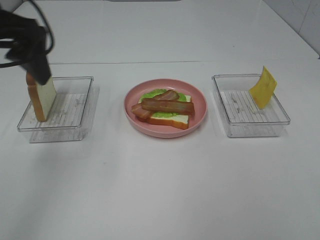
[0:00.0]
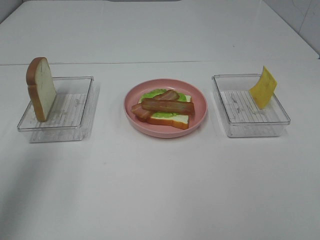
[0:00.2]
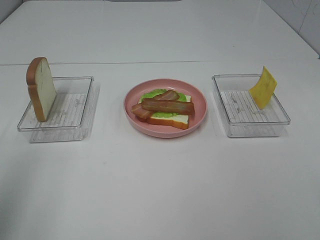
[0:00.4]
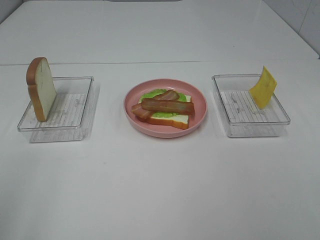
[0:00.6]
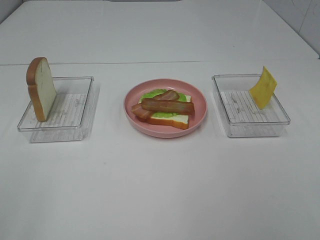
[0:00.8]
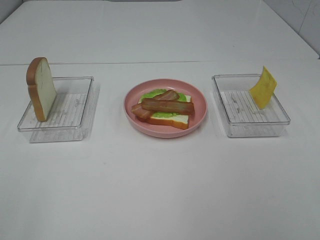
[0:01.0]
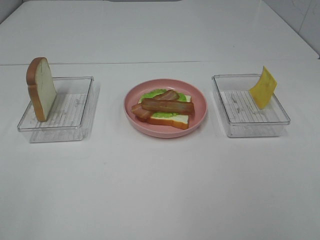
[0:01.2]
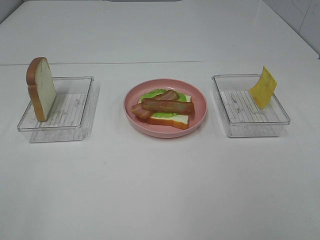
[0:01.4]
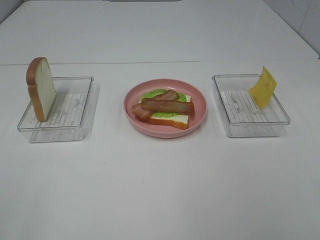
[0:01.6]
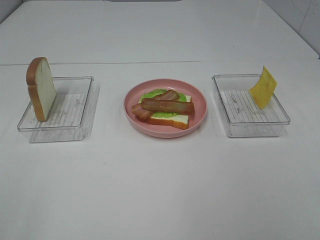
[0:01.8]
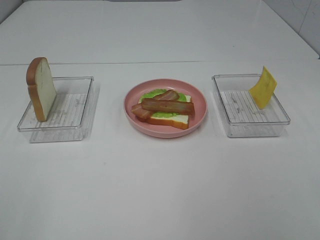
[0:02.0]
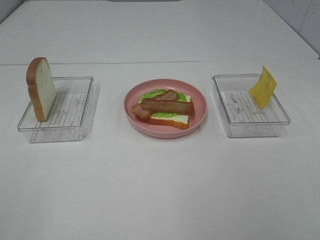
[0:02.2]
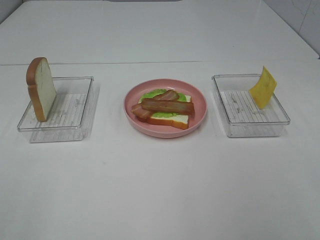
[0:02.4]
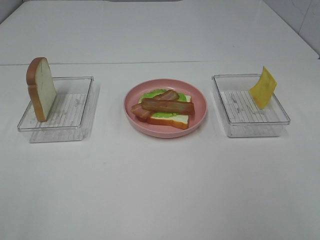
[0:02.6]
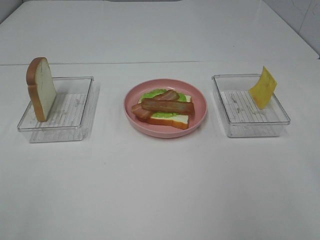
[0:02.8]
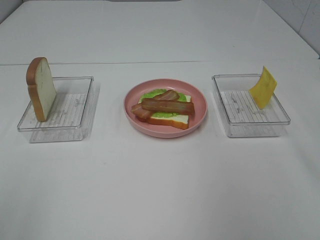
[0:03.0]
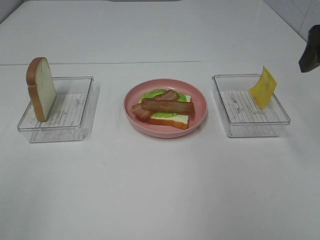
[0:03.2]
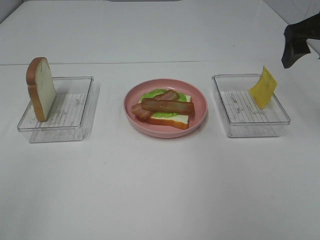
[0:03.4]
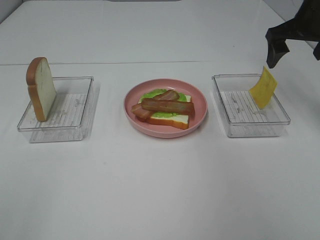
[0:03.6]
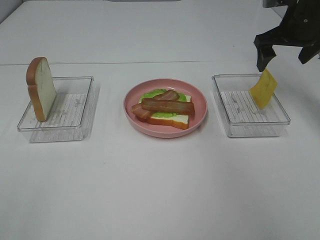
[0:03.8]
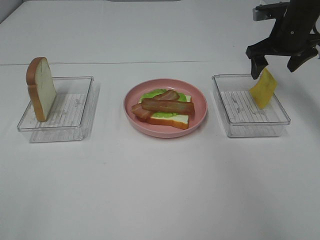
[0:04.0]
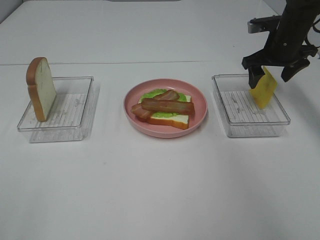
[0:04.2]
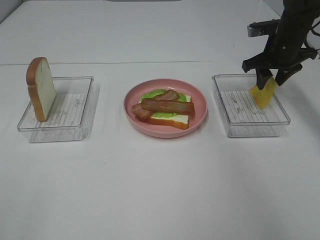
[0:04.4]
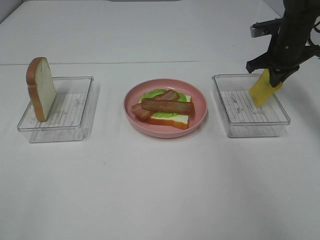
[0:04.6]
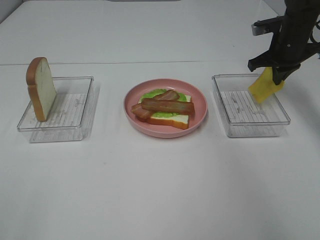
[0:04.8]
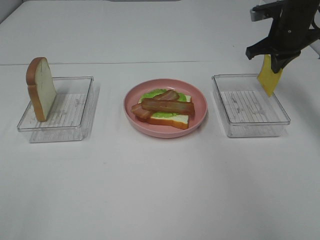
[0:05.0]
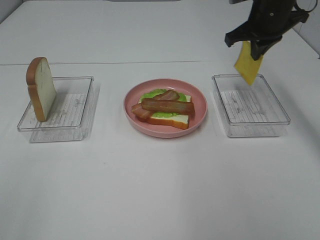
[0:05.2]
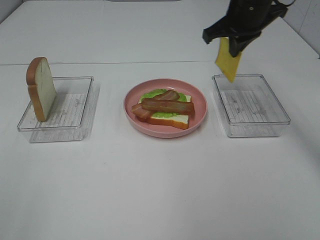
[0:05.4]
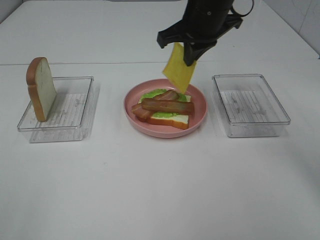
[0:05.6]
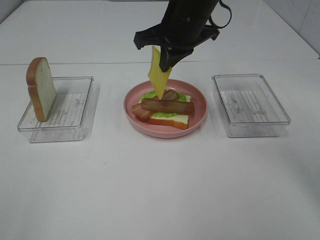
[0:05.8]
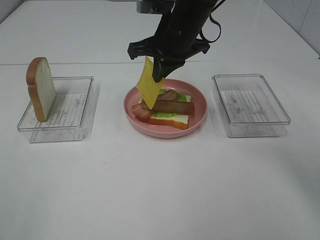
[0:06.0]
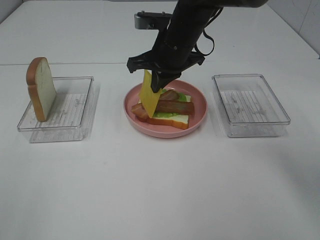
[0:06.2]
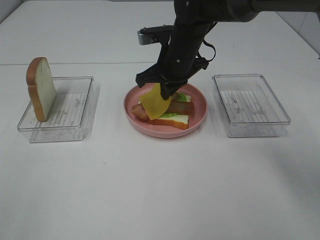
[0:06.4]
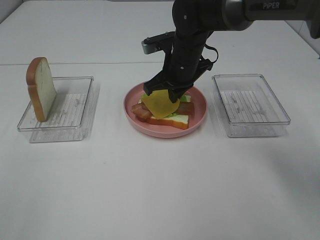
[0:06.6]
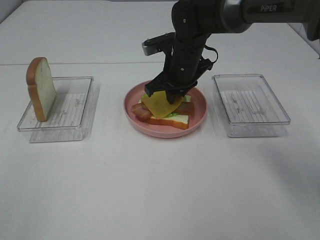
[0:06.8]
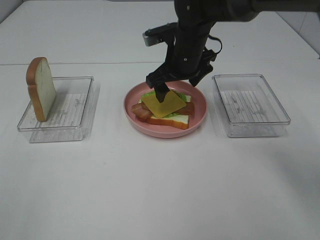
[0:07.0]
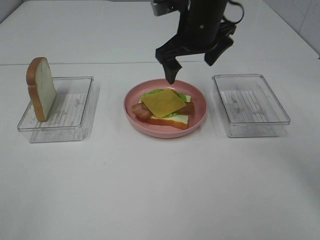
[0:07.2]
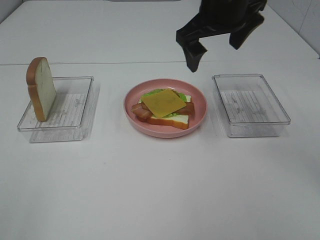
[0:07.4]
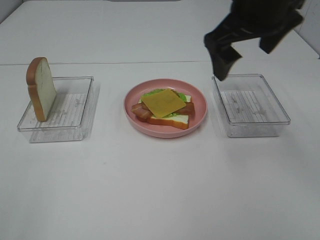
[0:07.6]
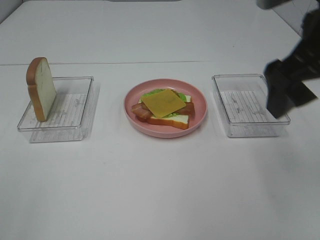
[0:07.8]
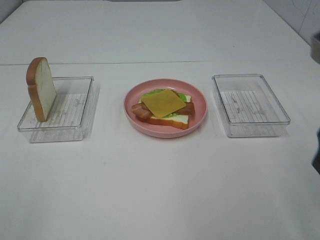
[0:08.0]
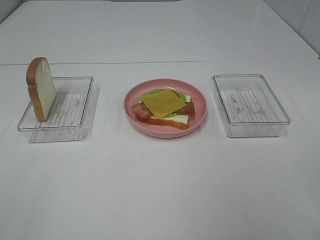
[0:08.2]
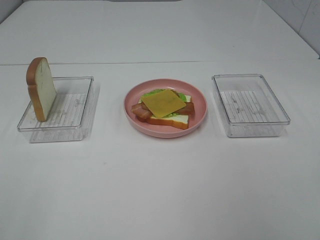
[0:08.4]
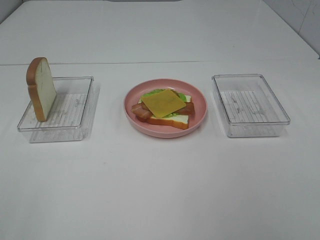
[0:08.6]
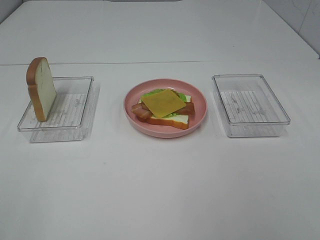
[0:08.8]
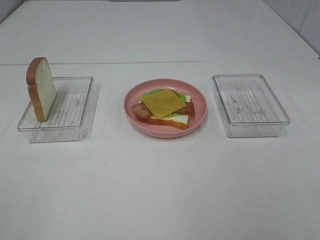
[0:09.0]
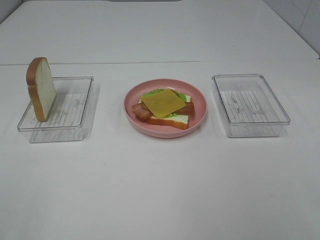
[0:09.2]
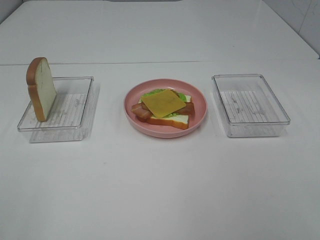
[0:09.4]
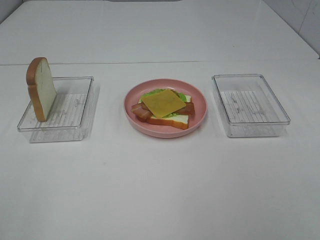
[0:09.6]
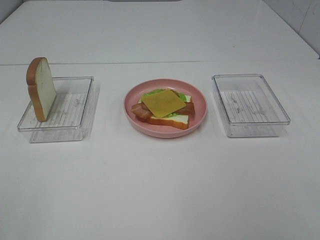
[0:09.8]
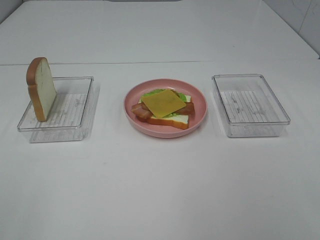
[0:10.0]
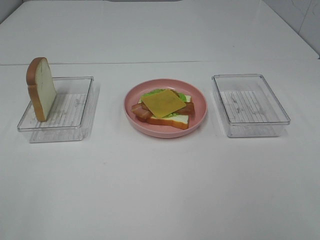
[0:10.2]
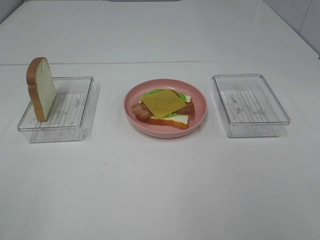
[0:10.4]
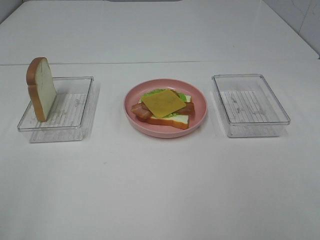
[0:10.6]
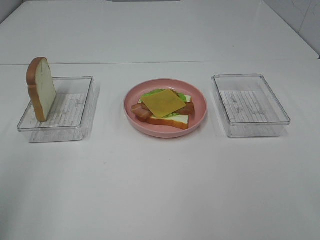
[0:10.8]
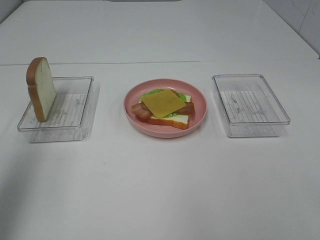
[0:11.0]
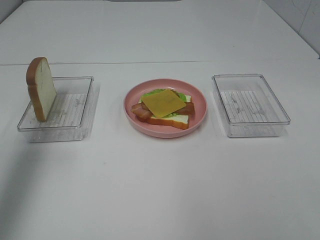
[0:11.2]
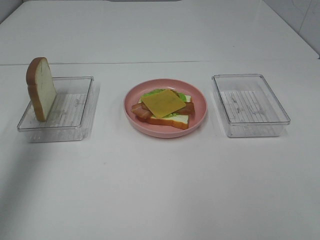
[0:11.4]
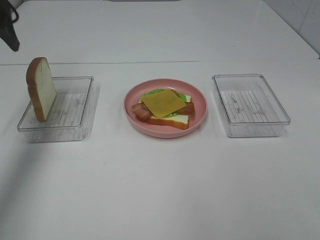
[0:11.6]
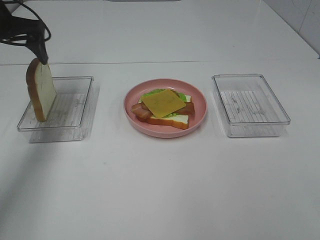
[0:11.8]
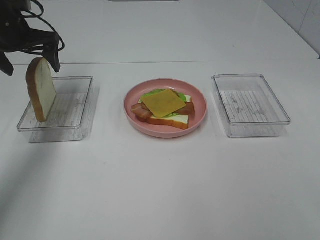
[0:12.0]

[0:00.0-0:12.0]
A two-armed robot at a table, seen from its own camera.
Task of the whole recording: Make sandwiches.
Step, 0.0 to 4.8 s: Right hand:grab the cheese slice.
Step, 5.0 to 6.8 s: Right hand:place the cheese slice on top of the bacon.
0.0 to 1.6 s: The left gripper shifts about 30 cm backward.
3.0 to 4.4 s: The right gripper is displaced forward and downward by approximately 30 cm, and closes up.
4.4 to 6.0 s: The right gripper travels to the left by roughly 25 cm, and closes its fingers.
6.0 to 7.6 s: The right gripper shifts roughly 15 cm upward, backward and to the right, and opens.
7.6 to 9.0 s: The right gripper heads backward and to the right, covering approximately 35 cm.
9.0 to 10.4 s: Both grippers stay put.
10.4 to 12.0 s: The left gripper travels forward by about 50 cm.

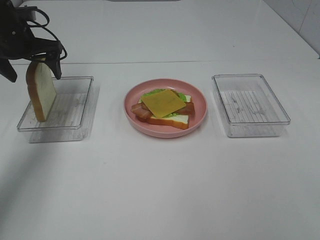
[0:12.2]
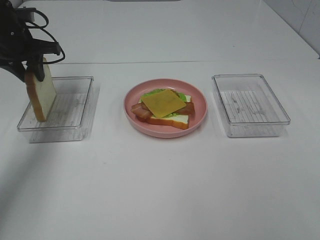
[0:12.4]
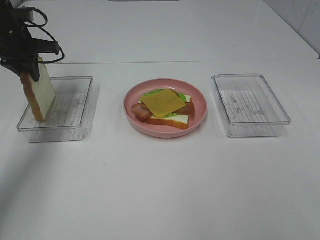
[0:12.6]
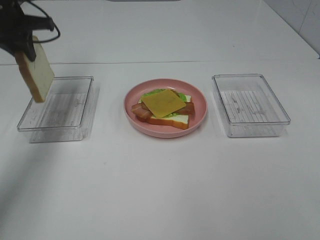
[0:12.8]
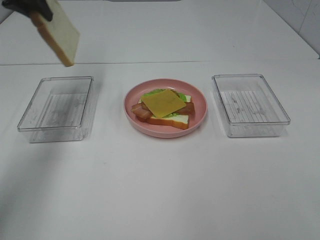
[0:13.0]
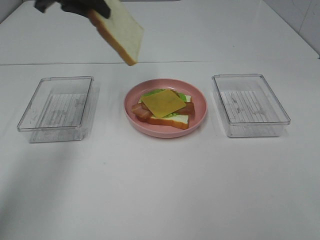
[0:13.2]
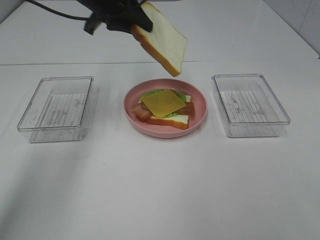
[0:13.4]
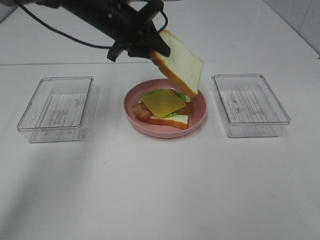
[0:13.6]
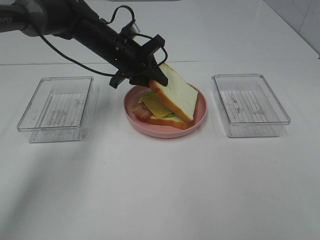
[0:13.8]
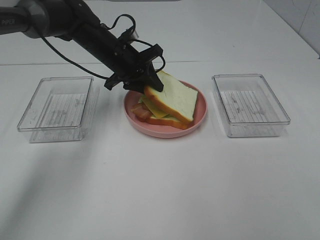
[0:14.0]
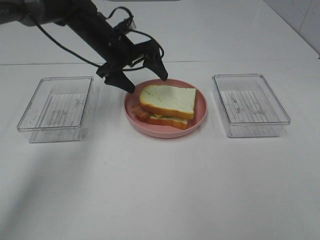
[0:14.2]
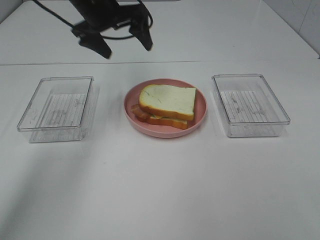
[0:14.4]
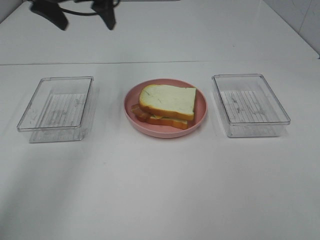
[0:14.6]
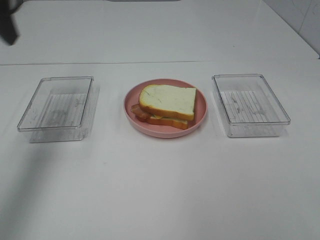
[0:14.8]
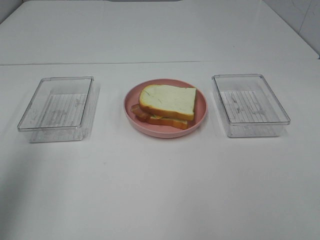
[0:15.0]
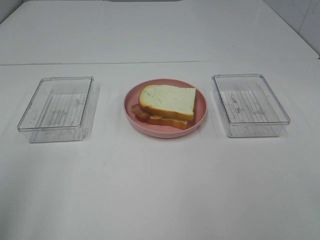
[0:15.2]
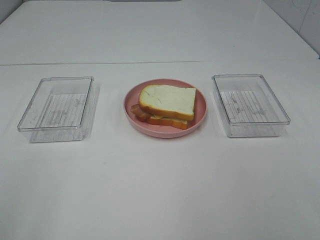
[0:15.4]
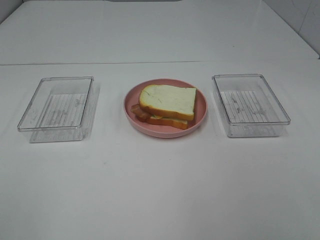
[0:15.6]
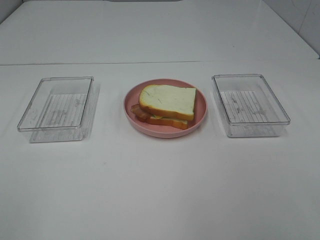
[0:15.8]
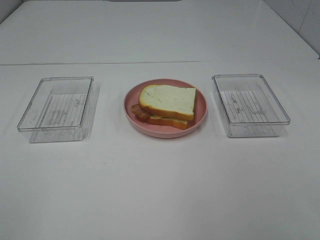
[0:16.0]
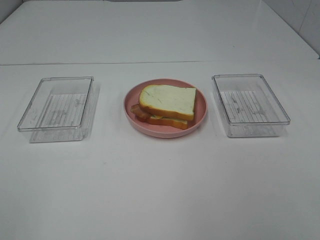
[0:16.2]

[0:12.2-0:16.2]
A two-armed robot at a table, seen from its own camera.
Task of the whole recording: Make sandwiches.
Step, 12.8 to 14.2 s: Left hand:place the bread slice on the cheese slice.
12.2 to 13.6 s: The left gripper shifts roughly 20 cm to the right, and closes its fingers.
13.6 to 14.8 s: The left gripper moves to the left, backward and upward, about 30 cm, and opens its fingers.
14.8 to 16.2 s: The left gripper heads backward, covering roughly 30 cm.

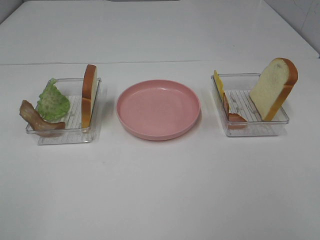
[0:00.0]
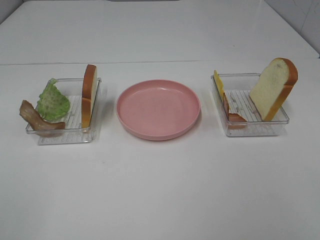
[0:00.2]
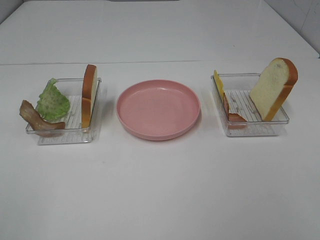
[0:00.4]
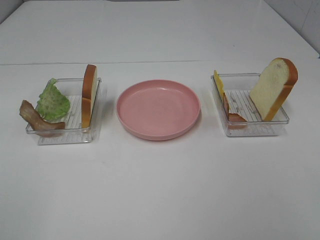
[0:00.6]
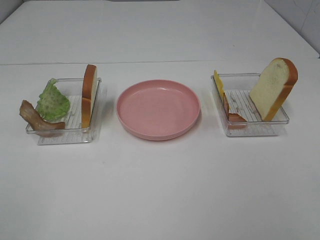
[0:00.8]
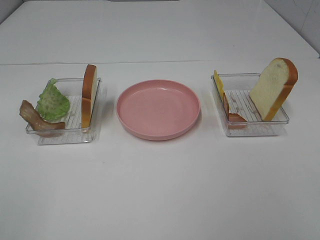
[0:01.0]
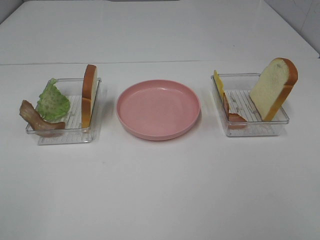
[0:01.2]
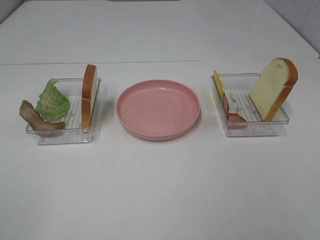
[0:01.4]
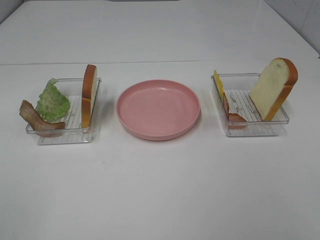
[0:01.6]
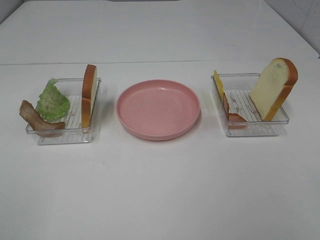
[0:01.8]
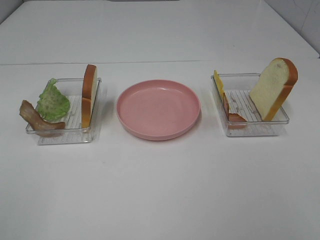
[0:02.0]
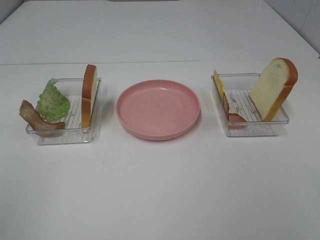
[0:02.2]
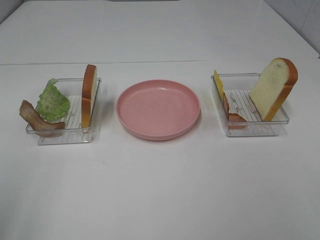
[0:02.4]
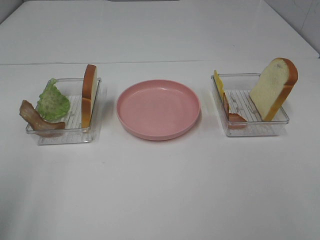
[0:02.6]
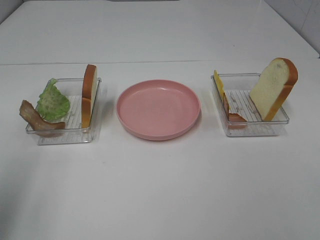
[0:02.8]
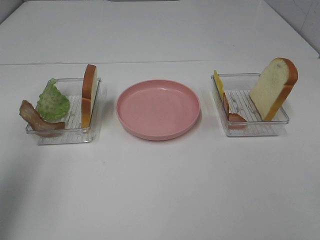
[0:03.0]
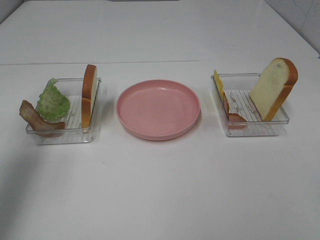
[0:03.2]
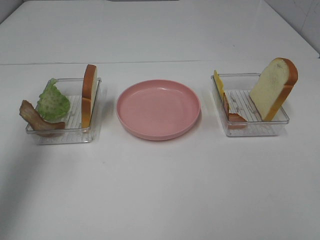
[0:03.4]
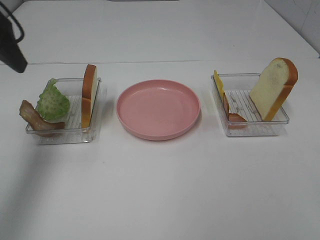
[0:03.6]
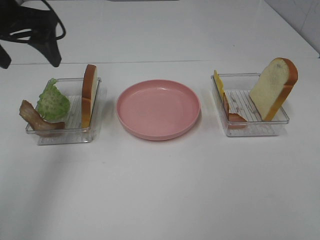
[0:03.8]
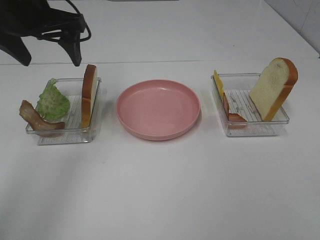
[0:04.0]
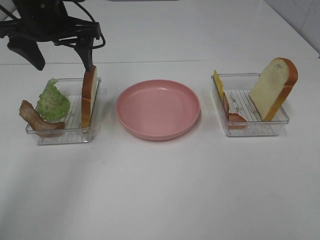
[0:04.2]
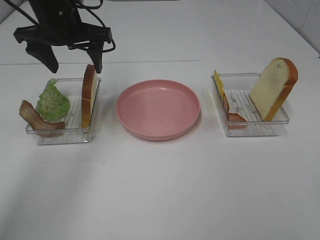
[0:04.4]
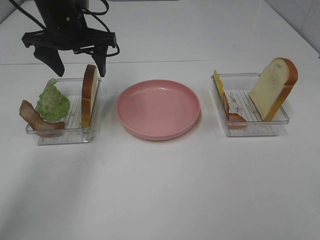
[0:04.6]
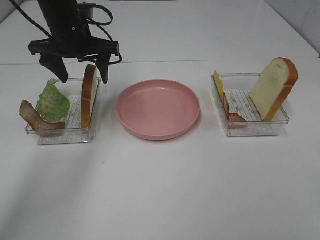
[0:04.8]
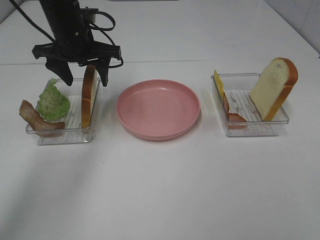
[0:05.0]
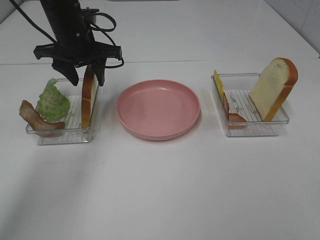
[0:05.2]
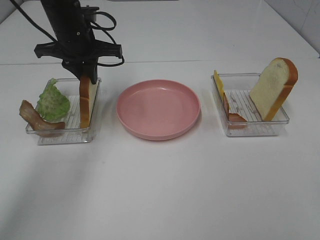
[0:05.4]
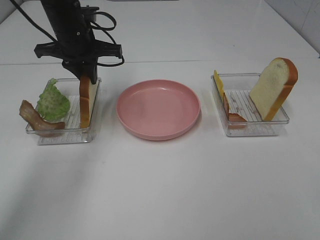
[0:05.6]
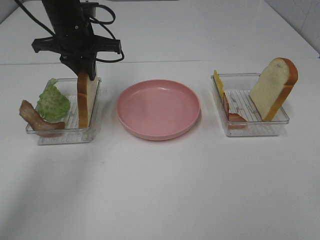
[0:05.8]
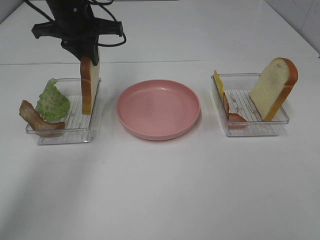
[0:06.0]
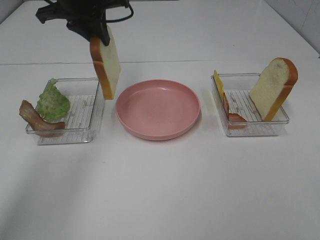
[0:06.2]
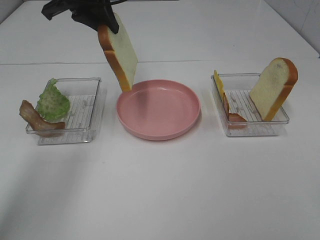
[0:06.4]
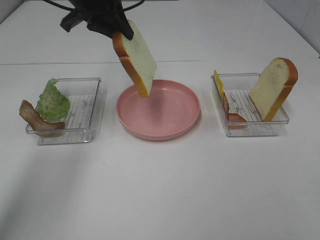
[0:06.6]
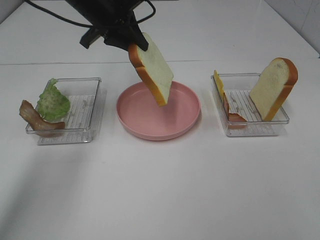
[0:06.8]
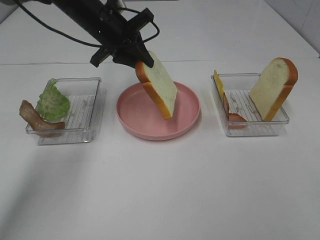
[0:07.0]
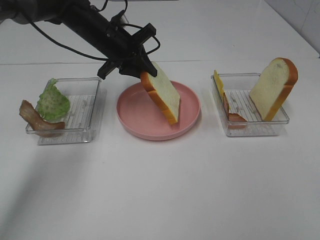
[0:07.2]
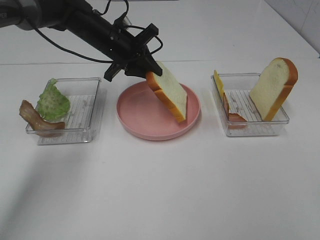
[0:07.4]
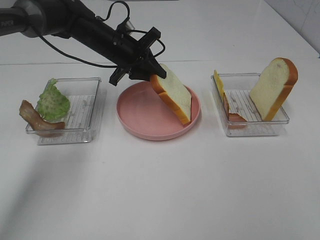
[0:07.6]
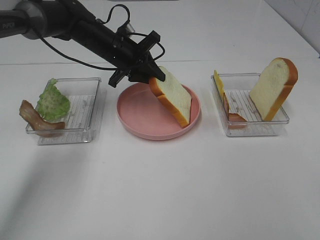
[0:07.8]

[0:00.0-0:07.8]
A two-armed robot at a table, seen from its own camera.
Task of the whole recording: Make sandwiches.
Step, 0.0 to 5.6 s: Left hand:grab the bread slice.
0.0 to 1.6 s: Neither gripper changes place.
1.6 to 3.2 s: The left gripper shifts roughly 25 cm forward.
3.2 to 4.6 s: The left gripper goes about 25 cm forward, to the right and downward.
4.6 to 6.2 s: The left gripper shifts approximately 5 cm upward, and closes its fingers.
6.2 to 7.8 s: The left gripper goes some 15 cm downward.
